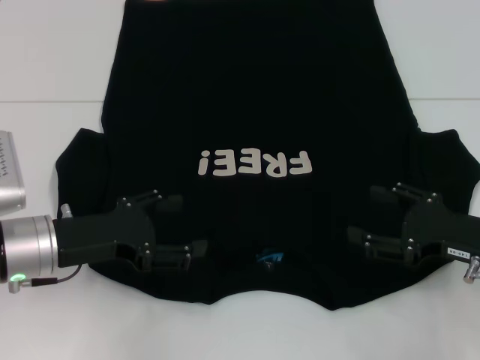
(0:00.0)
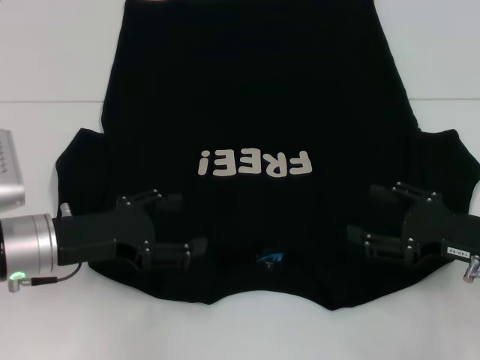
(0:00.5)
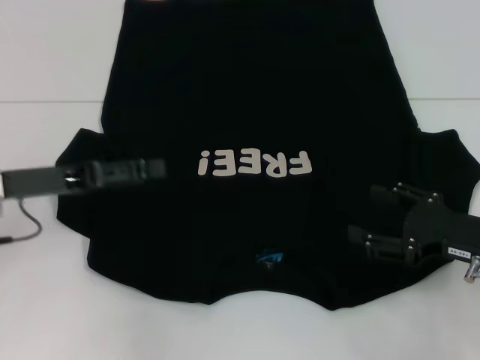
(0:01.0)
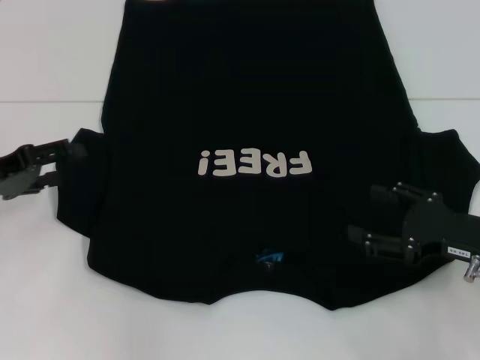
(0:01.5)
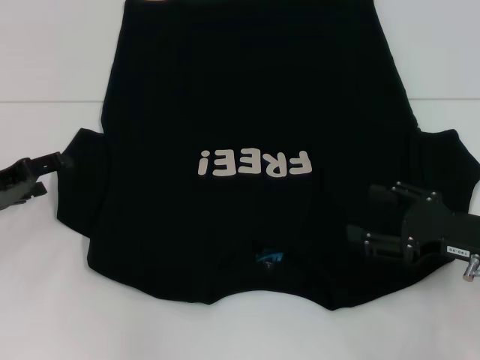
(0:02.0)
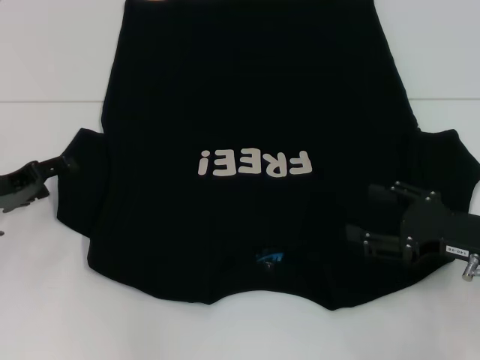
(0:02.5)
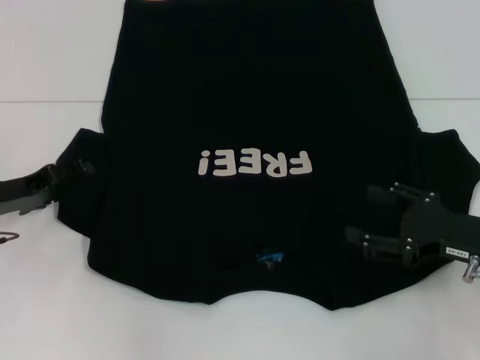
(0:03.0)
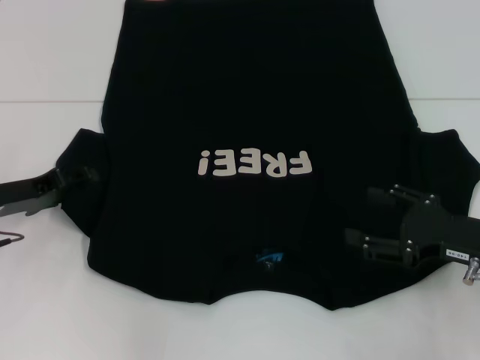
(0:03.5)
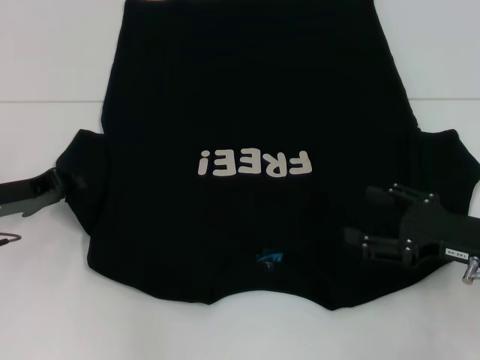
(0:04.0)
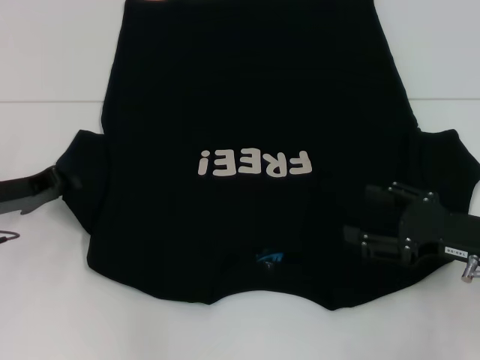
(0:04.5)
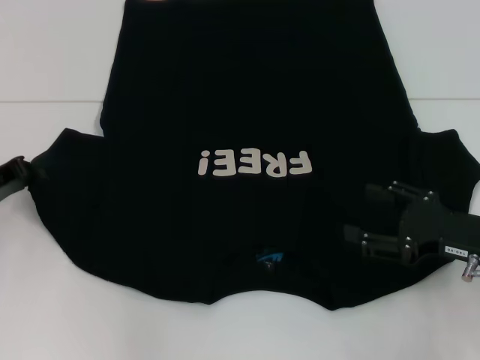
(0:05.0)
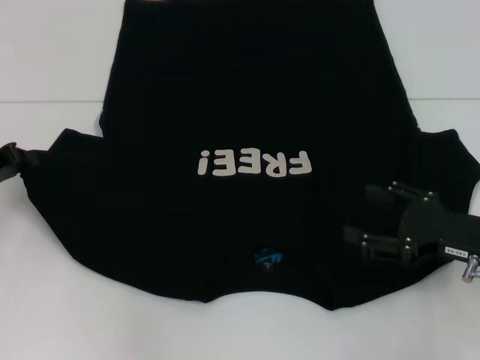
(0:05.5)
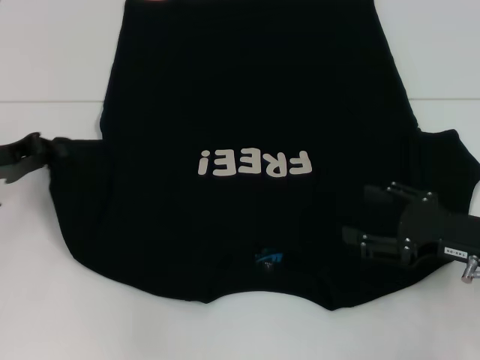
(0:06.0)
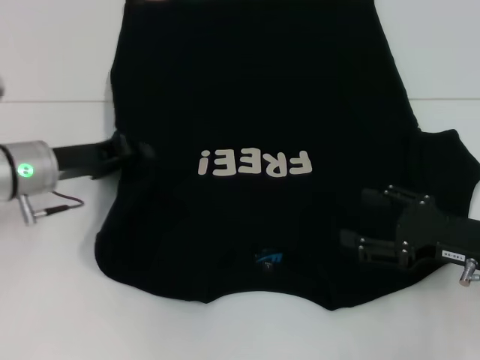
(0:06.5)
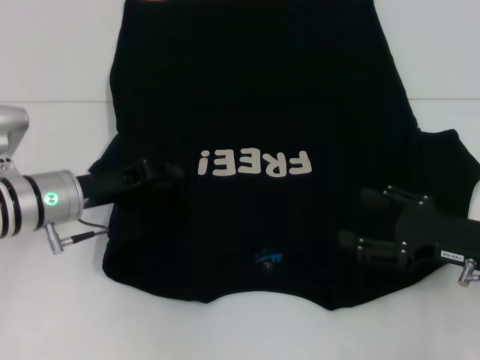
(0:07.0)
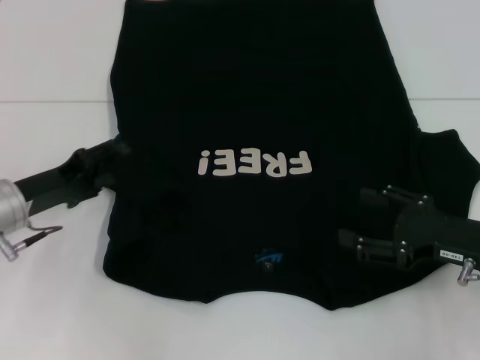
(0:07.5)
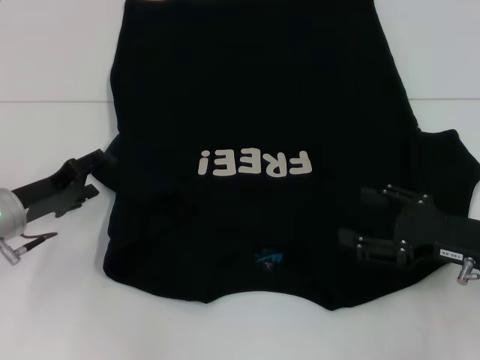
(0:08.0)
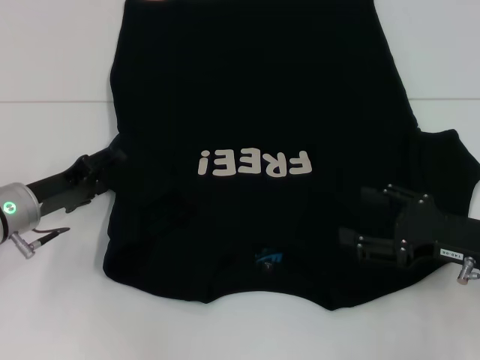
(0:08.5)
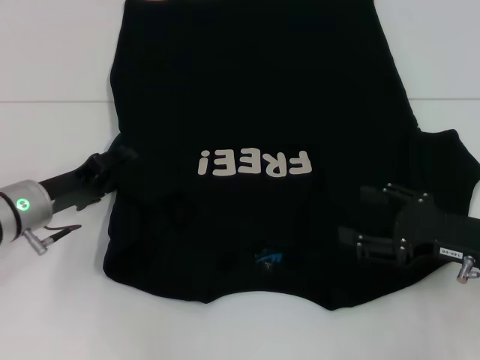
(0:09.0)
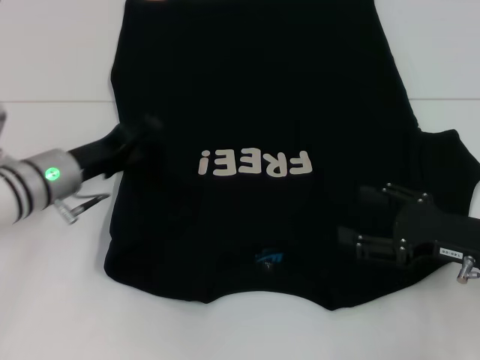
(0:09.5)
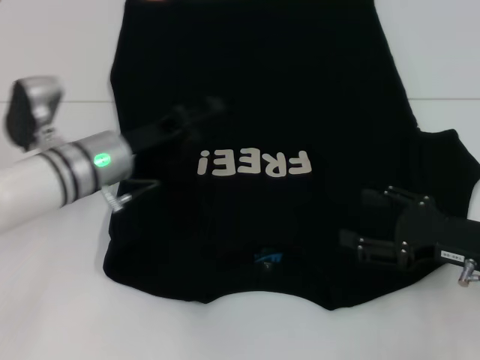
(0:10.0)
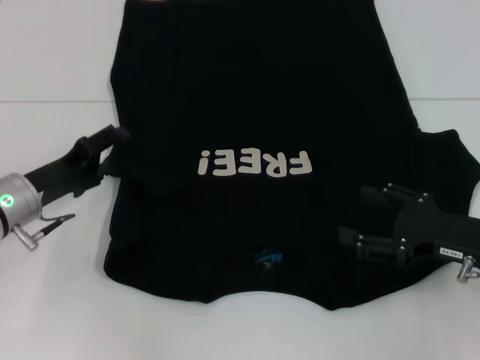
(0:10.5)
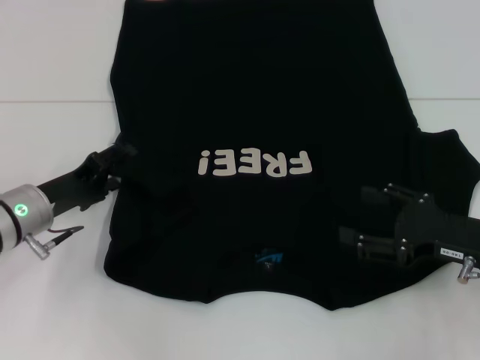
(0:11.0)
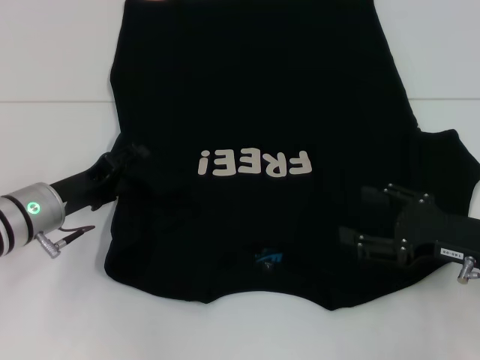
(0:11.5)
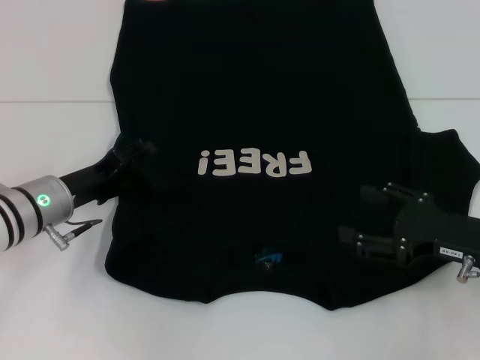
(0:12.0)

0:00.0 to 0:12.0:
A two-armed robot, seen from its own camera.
0:00.0 to 0:02.0: The left gripper heads to the left, covering some 10 cm.
0:02.0 to 0:04.0: The left gripper closes its fingers.
0:04.0 to 0:06.0: The grippers stay close to where they were, moving slightly.
0:06.0 to 0:08.0: The left gripper moves downward, roughly 5 cm, and opens.
0:08.0 to 0:10.0: The left gripper heads to the right, covering some 10 cm.
0:10.0 to 0:12.0: The left gripper is displaced to the left by some 5 cm.

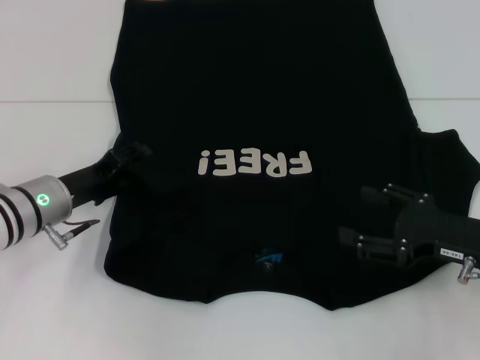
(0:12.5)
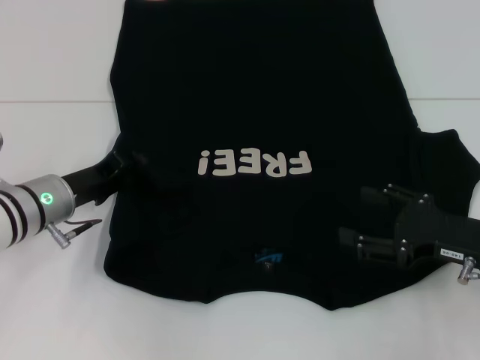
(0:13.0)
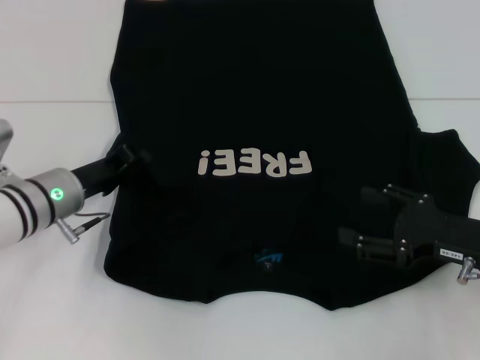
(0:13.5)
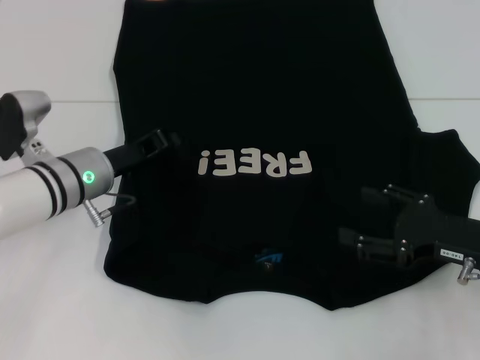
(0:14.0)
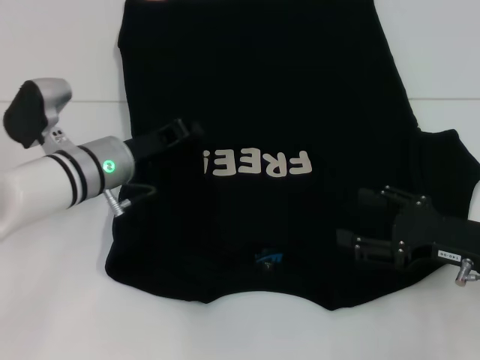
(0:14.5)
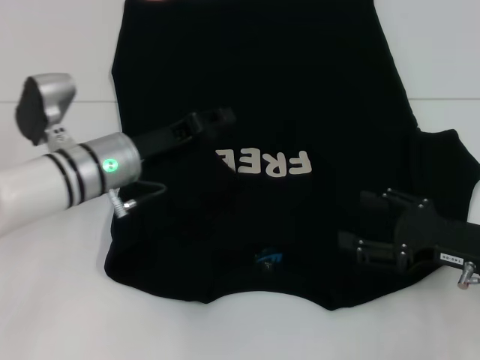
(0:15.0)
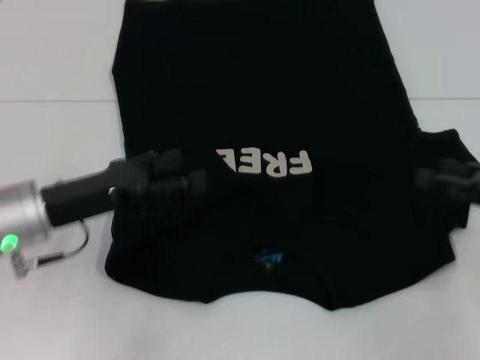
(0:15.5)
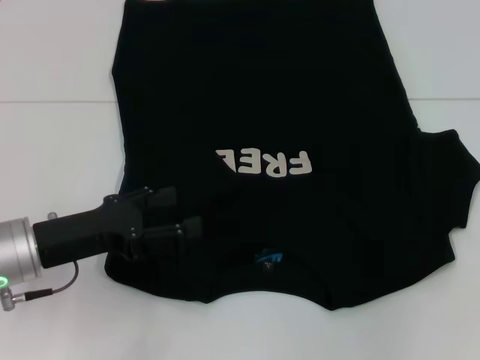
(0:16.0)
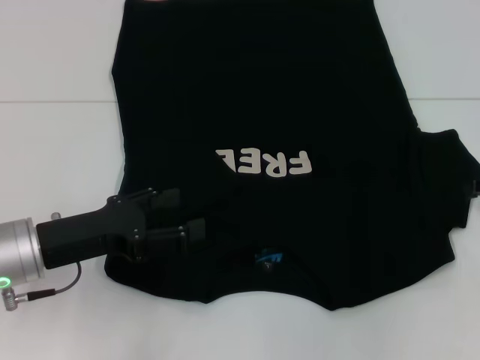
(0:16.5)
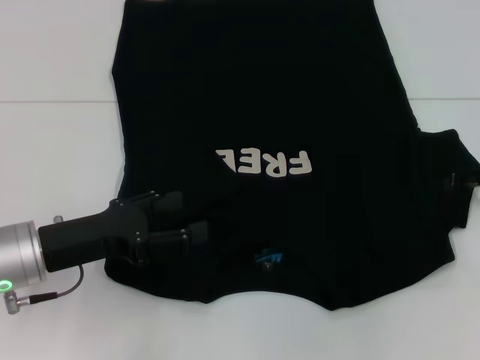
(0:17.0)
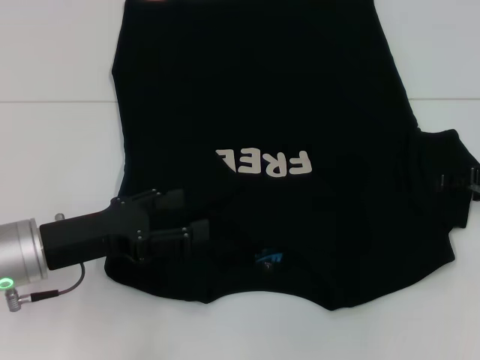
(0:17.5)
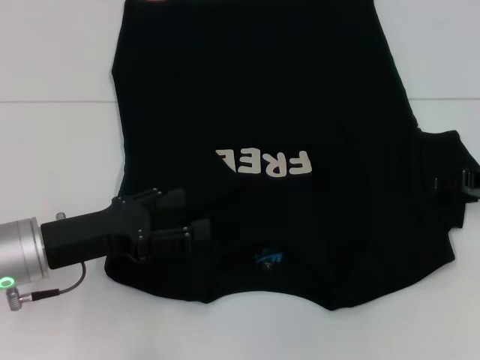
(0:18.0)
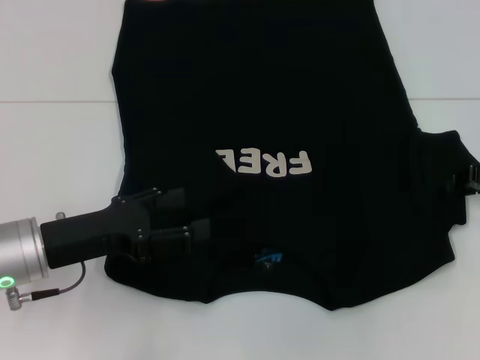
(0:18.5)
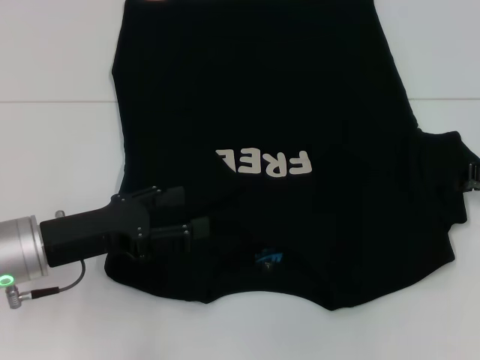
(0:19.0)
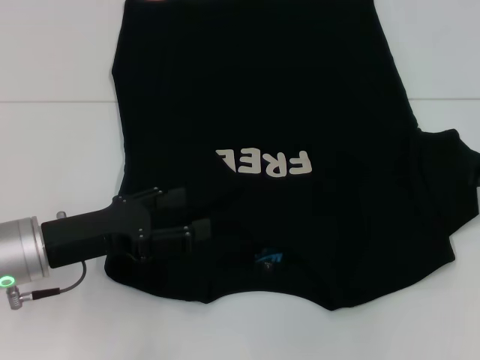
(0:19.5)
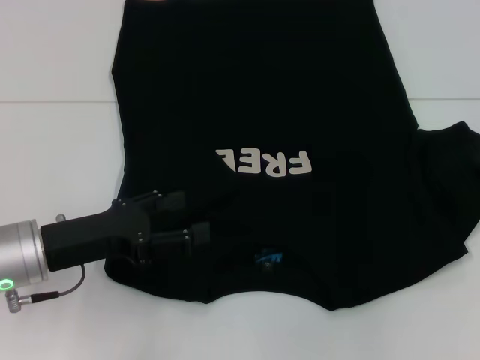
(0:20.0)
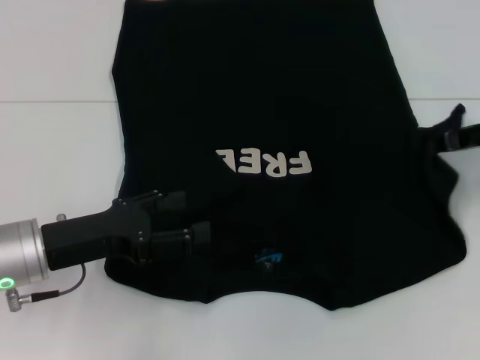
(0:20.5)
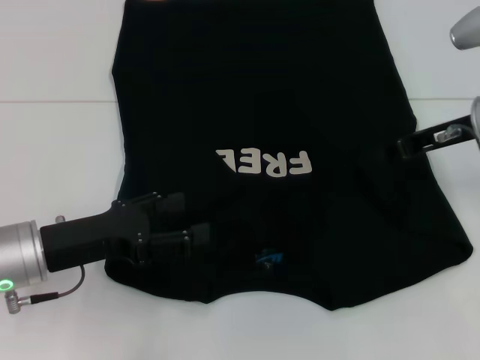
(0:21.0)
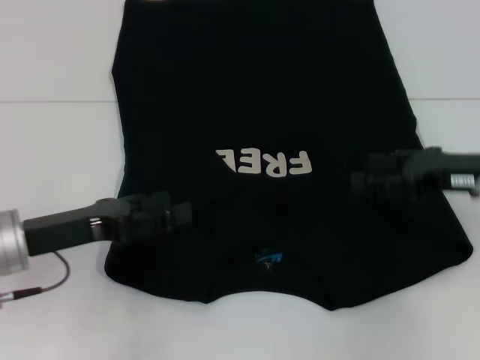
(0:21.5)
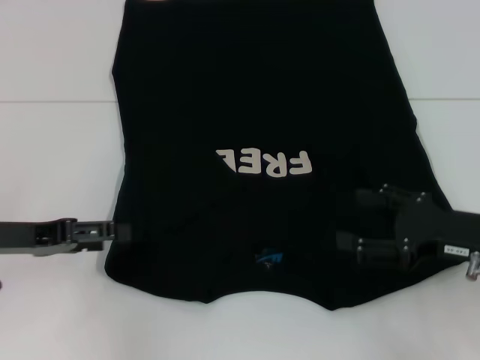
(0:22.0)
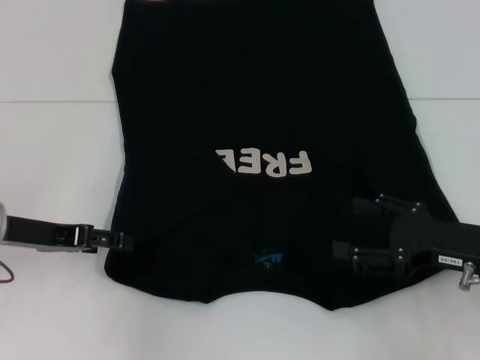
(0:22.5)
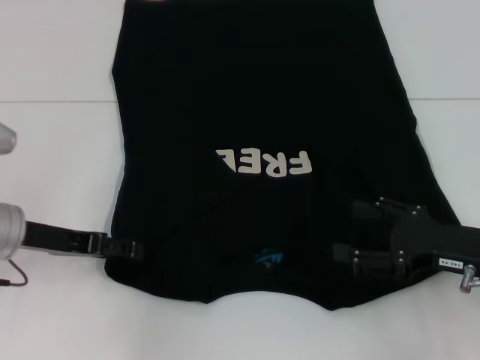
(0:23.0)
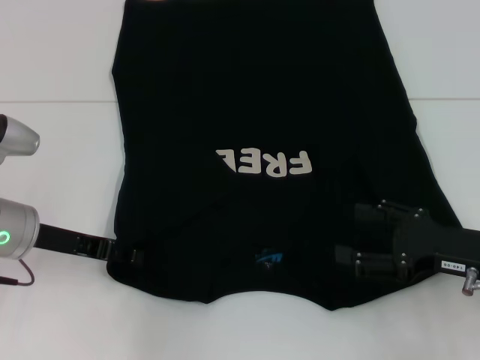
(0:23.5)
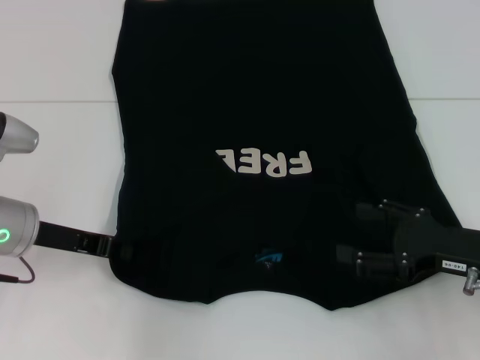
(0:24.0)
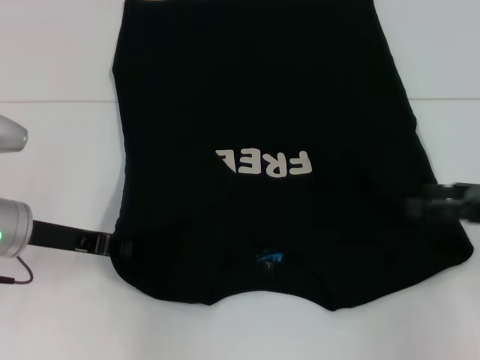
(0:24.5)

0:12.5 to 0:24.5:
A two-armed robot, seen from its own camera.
Step, 0:12.5 to 0:15.0: Fold the bottom left sleeve with your left hand.
Step, 0:15.5 to 0:21.0: Fold the bottom right sleeve with your right hand.
Step, 0:21.5 to 0:24.0: Grab the bottom left corner with your left hand.
0:12.5 to 0:14.5: The left gripper moves to the right, some 5 cm, and closes.
0:14.5 to 0:16.5: The left gripper shifts roughly 15 cm backward and to the left, and opens up; the right gripper is displaced to the right, forward and upward by approximately 15 cm.
0:18.5 to 0:20.5: The right gripper changes place by some 5 cm, and closes.
0:20.5 to 0:22.5: The right gripper travels backward and downward by approximately 15 cm, and opens its fingers; the left gripper ends up approximately 5 cm from where it was.
0:22.5 to 0:24.5: The right gripper goes approximately 5 cm to the right. The left gripper closes its fingers.

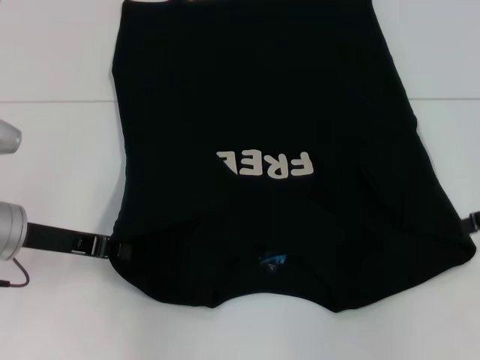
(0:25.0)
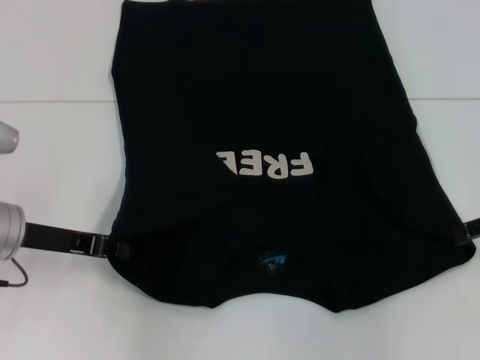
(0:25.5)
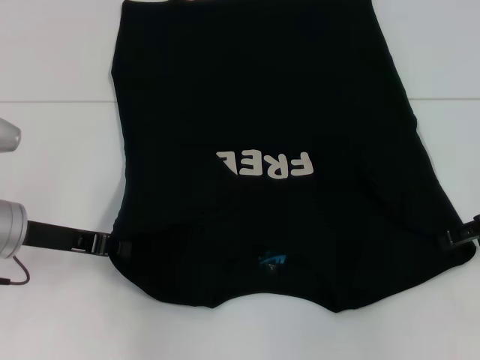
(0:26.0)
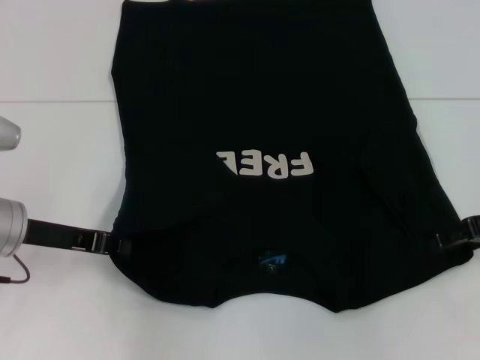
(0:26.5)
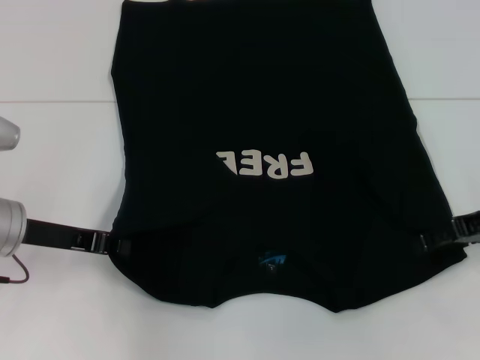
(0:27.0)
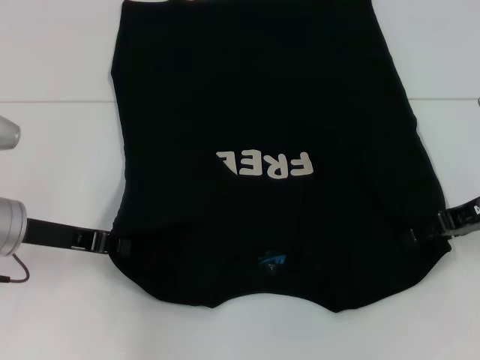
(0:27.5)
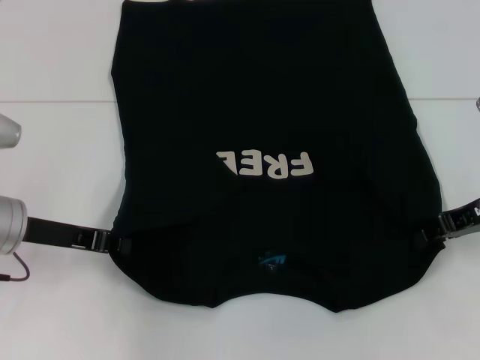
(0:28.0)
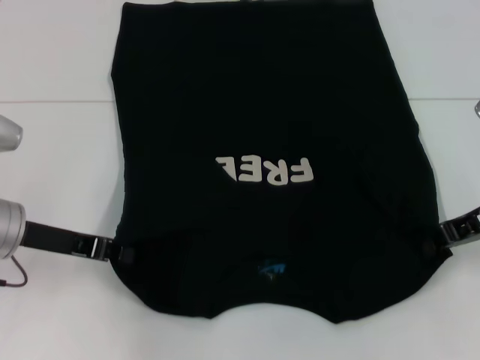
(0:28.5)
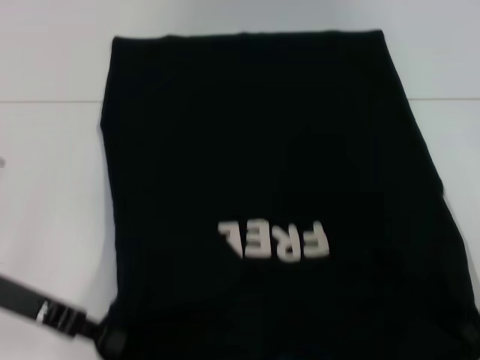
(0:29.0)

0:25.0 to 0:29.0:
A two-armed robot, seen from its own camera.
Step, 0:25.0 to 0:28.0: Grab the bottom right corner with your right hand.
0:27.0 to 0:29.0: The right gripper ends up approximately 5 cm from where it was, and closes up.
